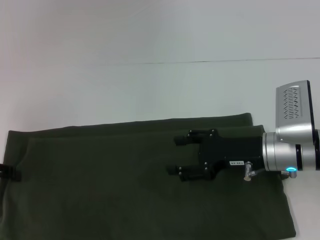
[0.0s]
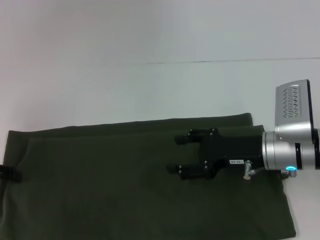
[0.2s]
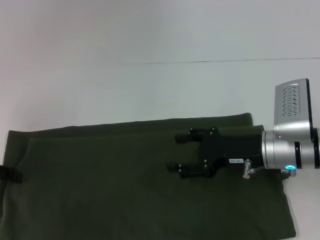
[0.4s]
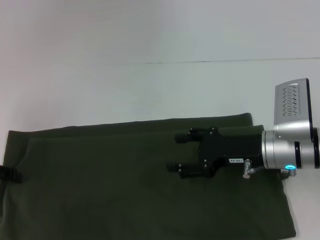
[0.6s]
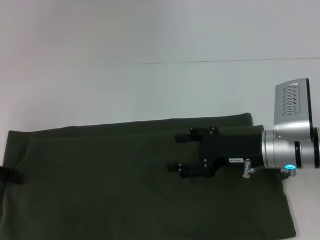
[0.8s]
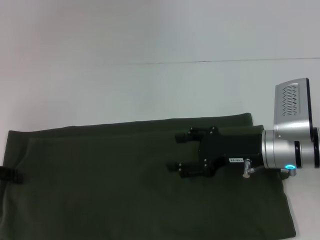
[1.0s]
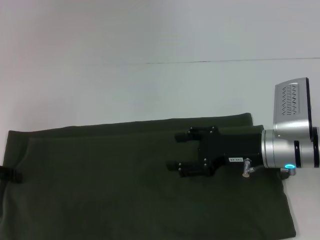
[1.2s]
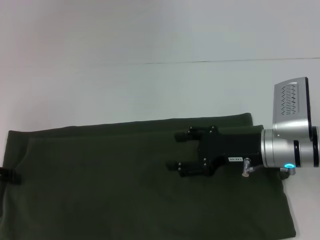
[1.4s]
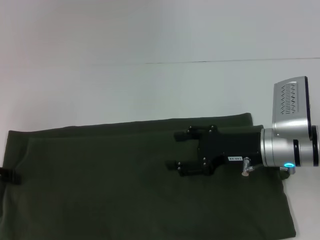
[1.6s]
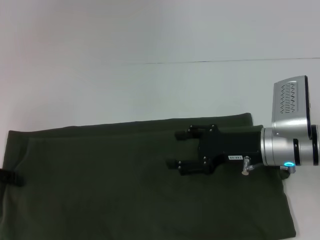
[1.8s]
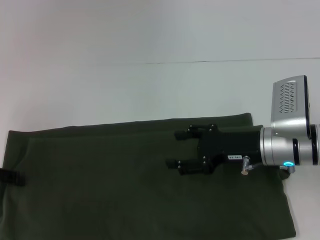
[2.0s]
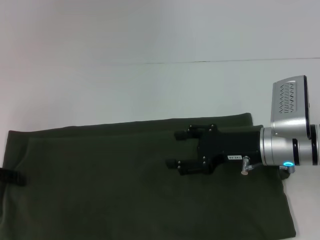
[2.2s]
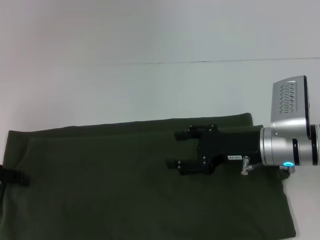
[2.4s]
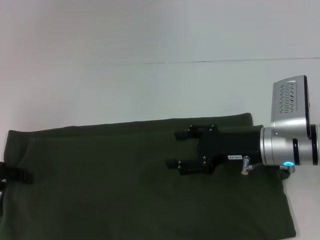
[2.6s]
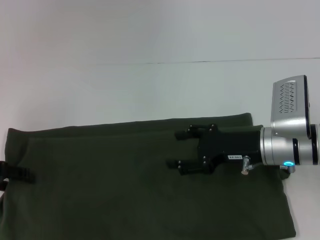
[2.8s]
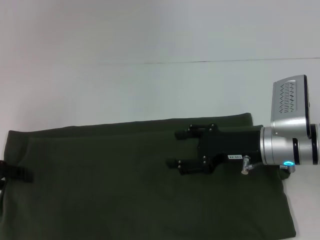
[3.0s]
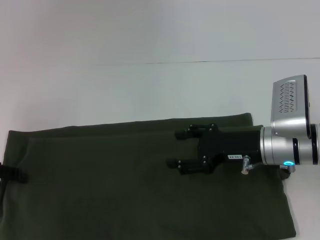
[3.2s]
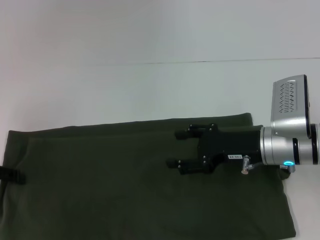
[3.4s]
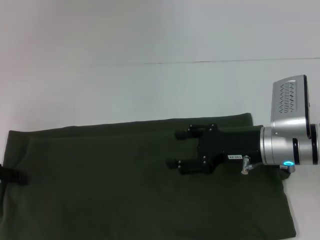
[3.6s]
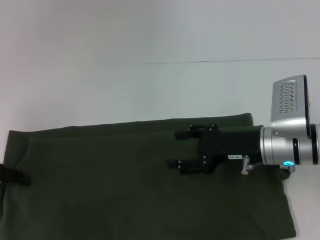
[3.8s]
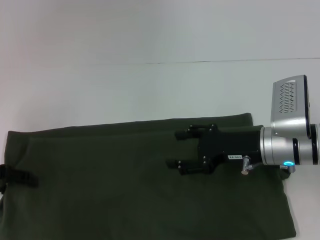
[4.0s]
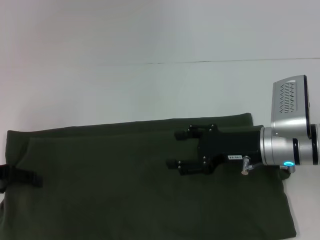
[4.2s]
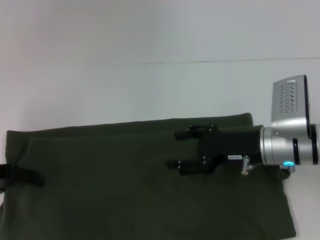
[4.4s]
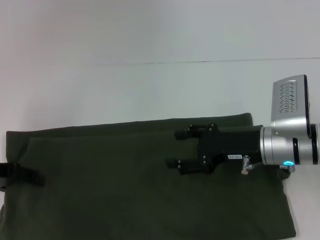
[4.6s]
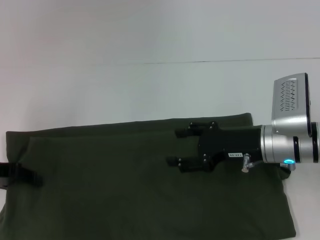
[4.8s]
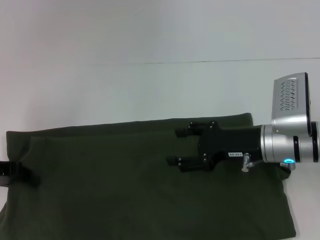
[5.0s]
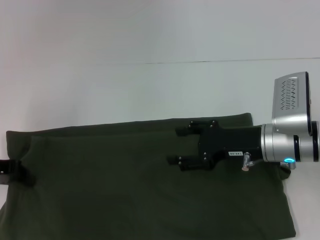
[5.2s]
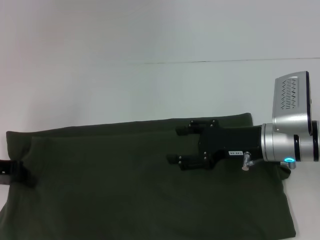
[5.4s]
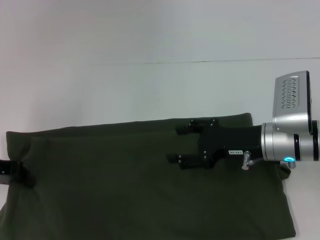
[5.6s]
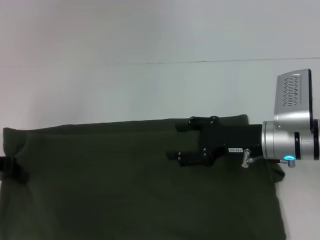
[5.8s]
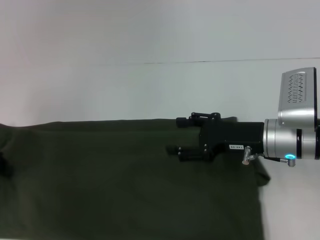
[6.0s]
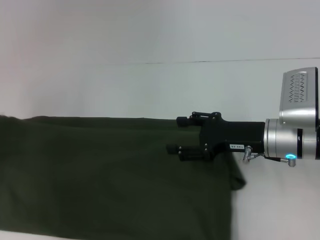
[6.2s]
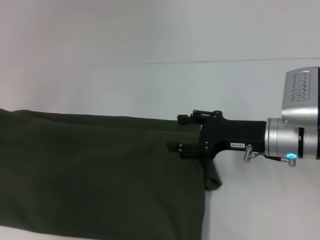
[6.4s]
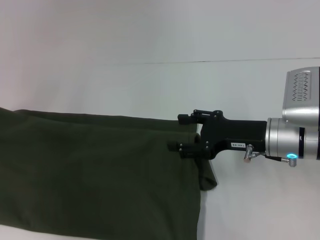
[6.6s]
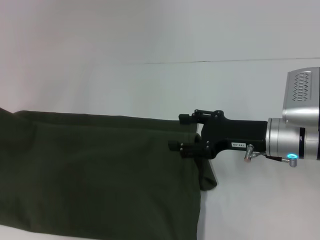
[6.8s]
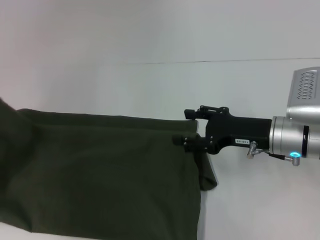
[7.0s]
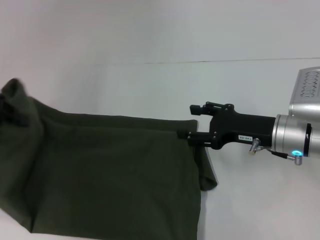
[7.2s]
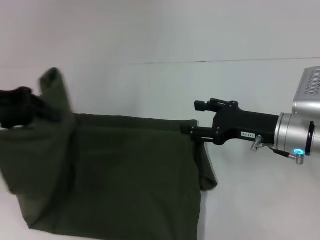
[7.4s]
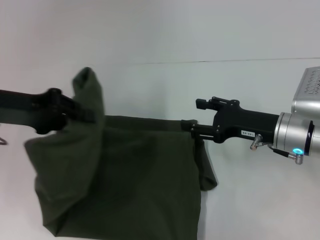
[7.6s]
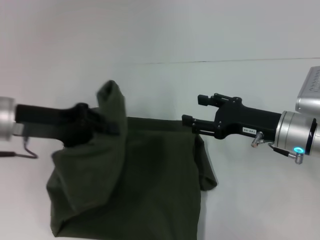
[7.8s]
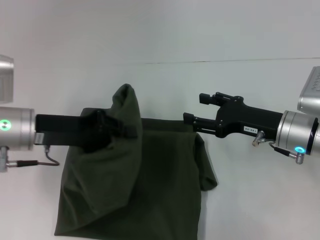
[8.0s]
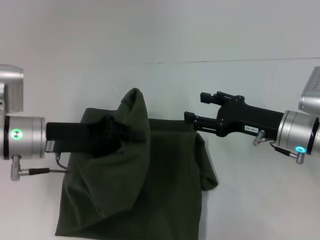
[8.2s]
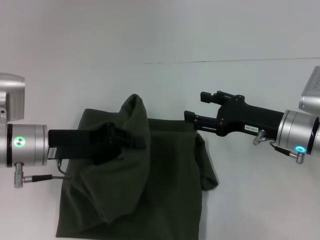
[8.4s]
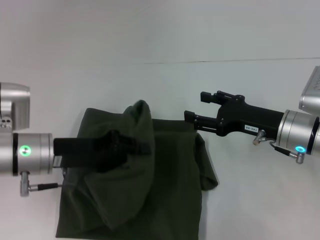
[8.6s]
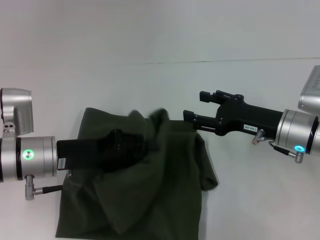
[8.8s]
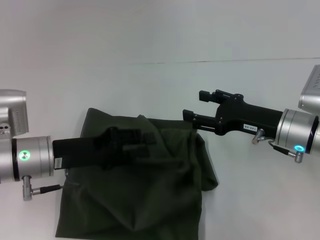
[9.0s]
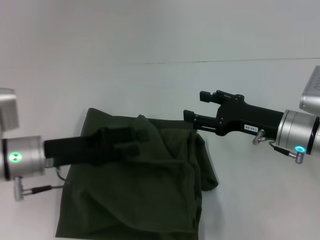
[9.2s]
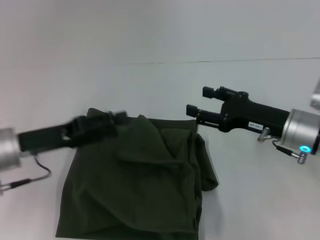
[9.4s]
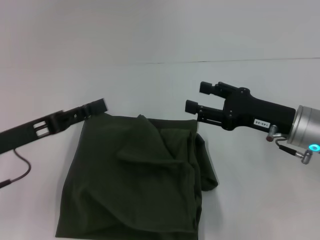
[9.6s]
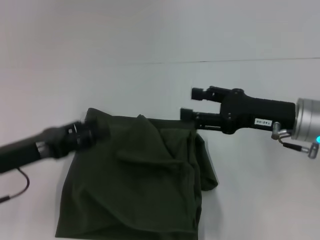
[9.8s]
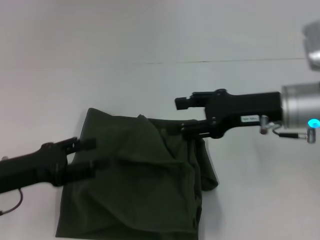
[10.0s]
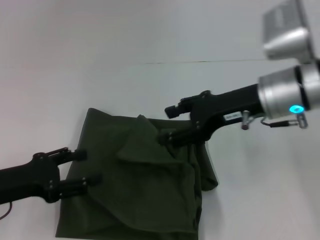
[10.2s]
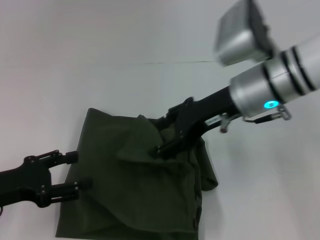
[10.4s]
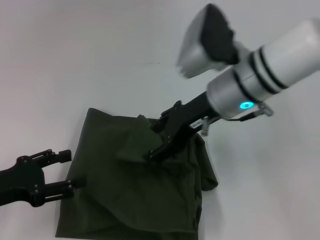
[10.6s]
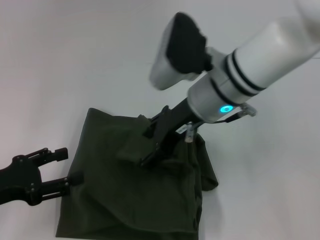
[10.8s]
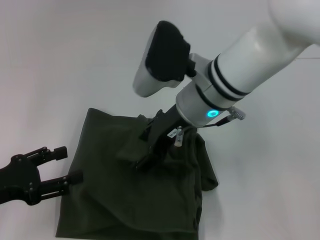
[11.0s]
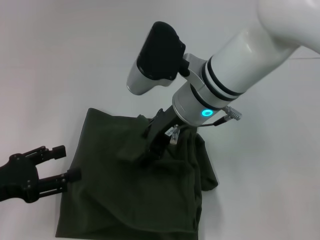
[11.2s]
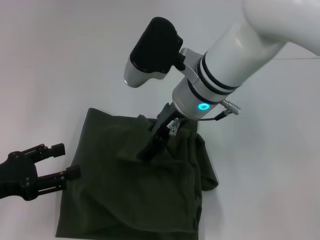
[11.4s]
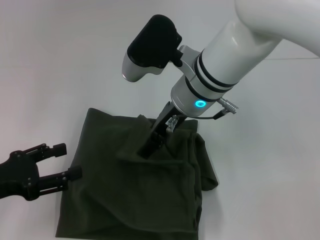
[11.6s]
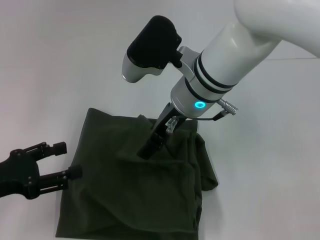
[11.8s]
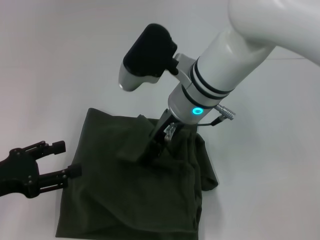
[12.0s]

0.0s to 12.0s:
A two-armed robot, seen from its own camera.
Step, 0.0s to 9.0s: Fold the clothes with your left hand.
0.0s to 1.6s: Neither gripper changes place.
1.6s to 3.0s: There are only small adjustments of the grippers.
4.4s to 6.0s: The left gripper closes its fingers.
6.0s to 7.6s: The left gripper goes about 10 cm to the right and upward.
7.6s to 9.0s: The left gripper travels downward and to the right by approximately 10 cm.
9.0s to 10.4s: The left gripper travels to the left and backward by about 10 cm, and opens; the right gripper is displaced upward and to the left by roughly 15 cm.
10.4s to 12.0s: The right gripper heads to the left, covering roughly 10 cm.

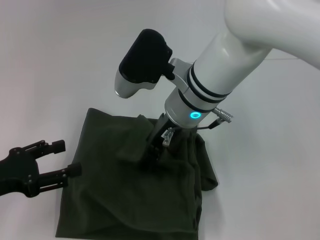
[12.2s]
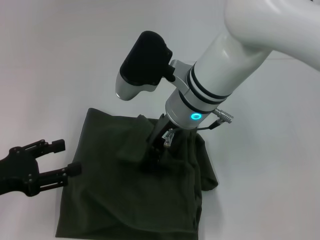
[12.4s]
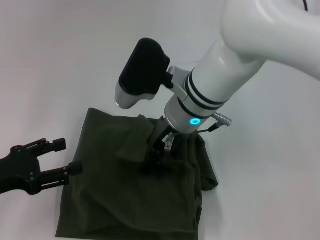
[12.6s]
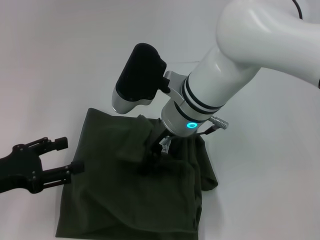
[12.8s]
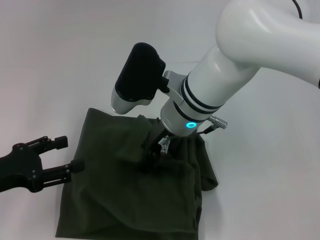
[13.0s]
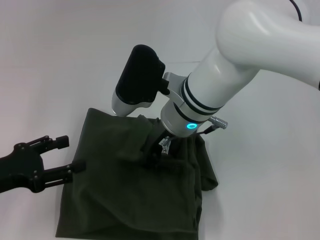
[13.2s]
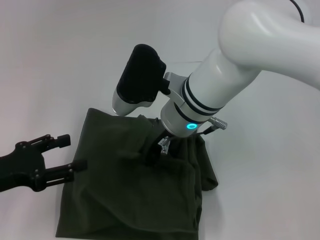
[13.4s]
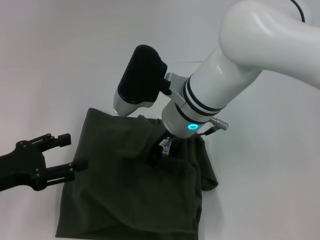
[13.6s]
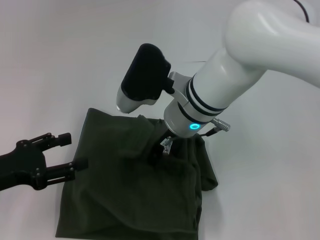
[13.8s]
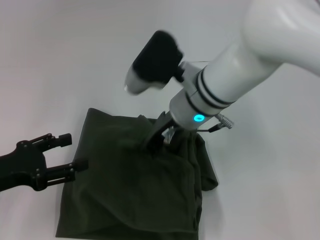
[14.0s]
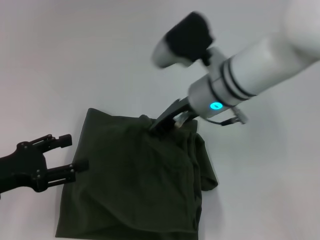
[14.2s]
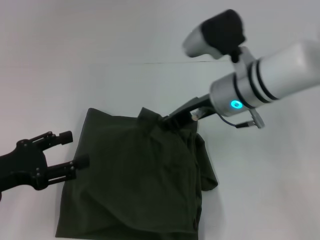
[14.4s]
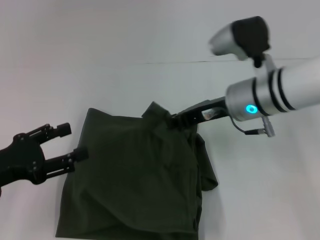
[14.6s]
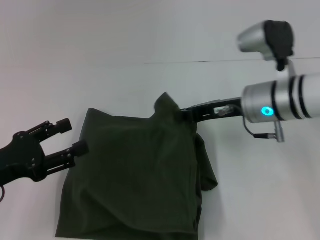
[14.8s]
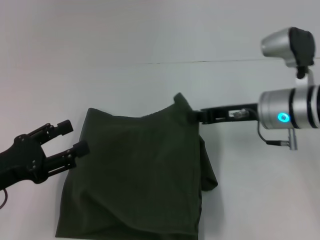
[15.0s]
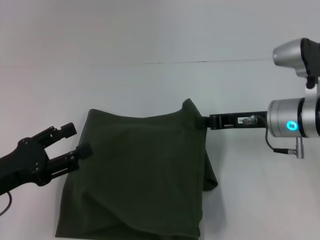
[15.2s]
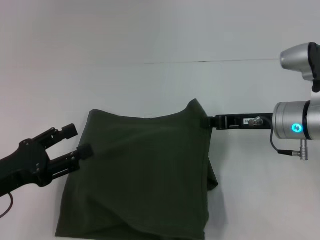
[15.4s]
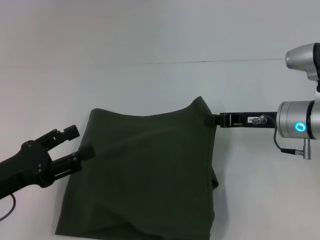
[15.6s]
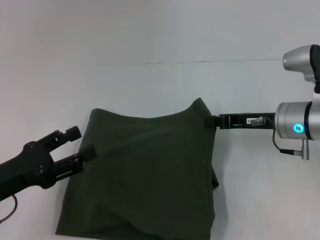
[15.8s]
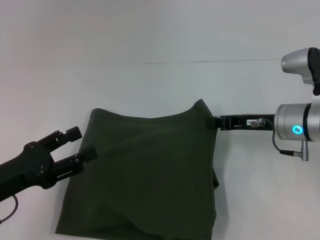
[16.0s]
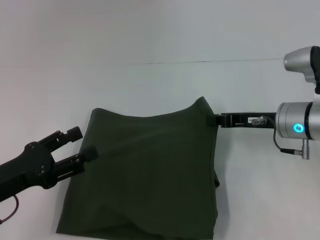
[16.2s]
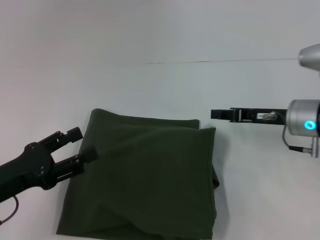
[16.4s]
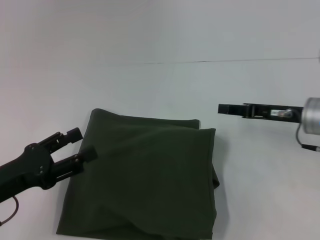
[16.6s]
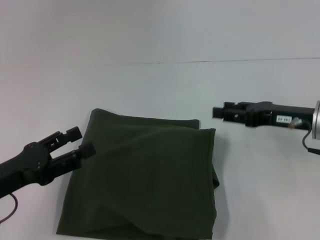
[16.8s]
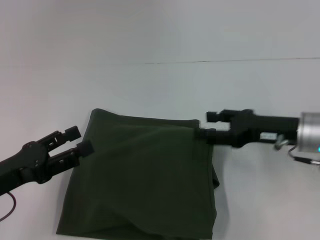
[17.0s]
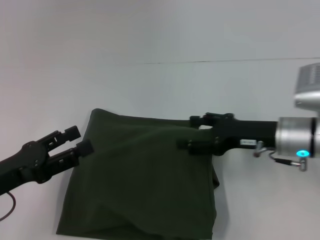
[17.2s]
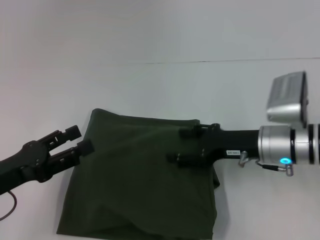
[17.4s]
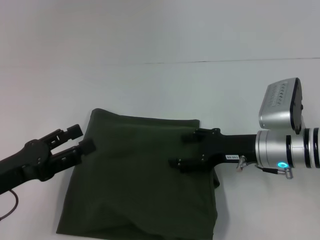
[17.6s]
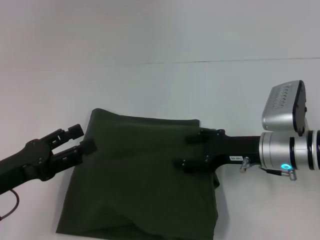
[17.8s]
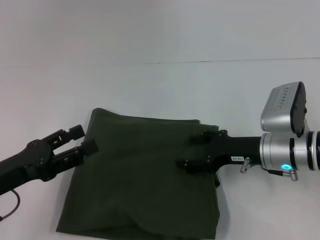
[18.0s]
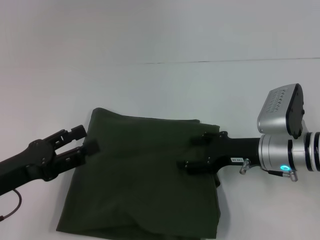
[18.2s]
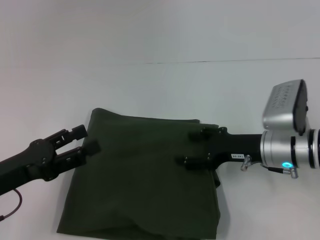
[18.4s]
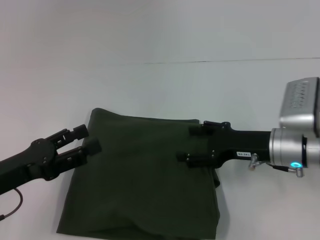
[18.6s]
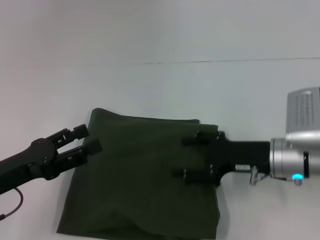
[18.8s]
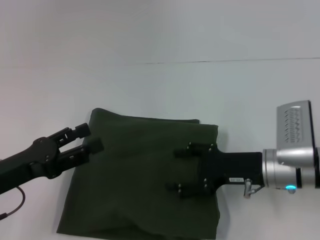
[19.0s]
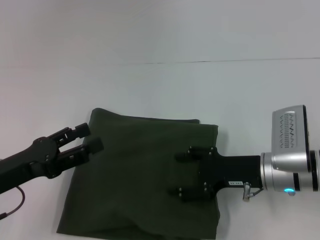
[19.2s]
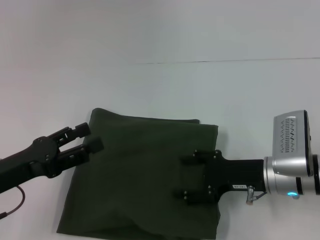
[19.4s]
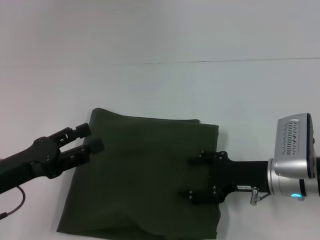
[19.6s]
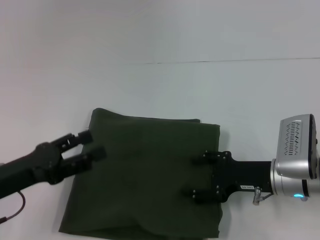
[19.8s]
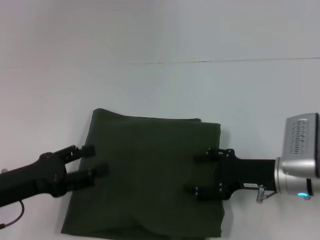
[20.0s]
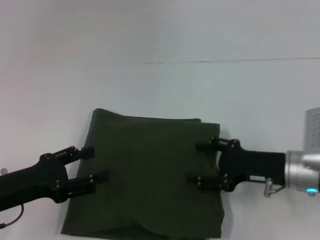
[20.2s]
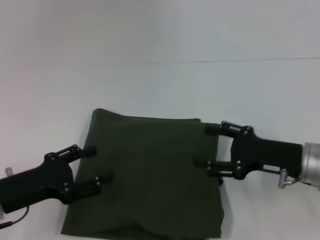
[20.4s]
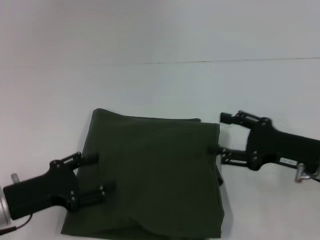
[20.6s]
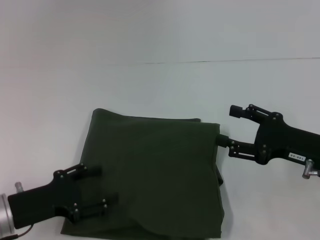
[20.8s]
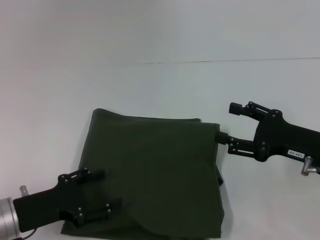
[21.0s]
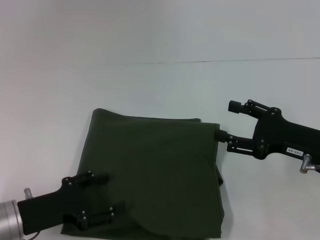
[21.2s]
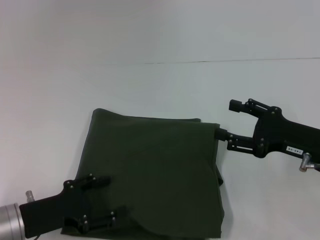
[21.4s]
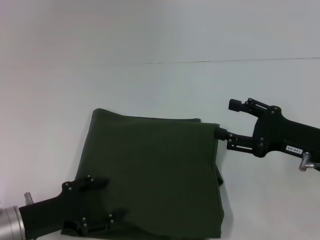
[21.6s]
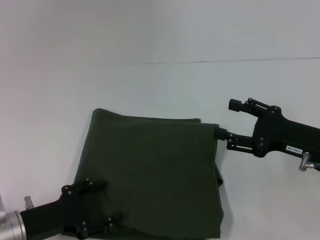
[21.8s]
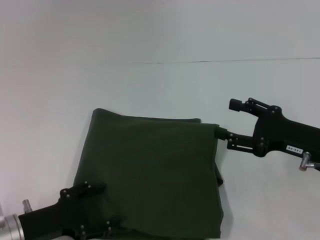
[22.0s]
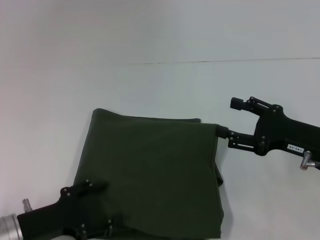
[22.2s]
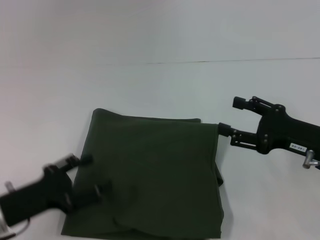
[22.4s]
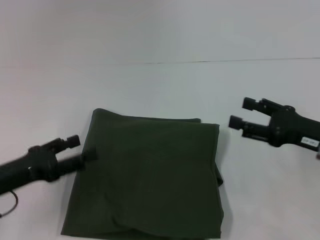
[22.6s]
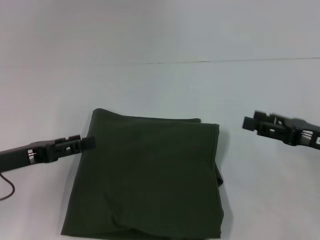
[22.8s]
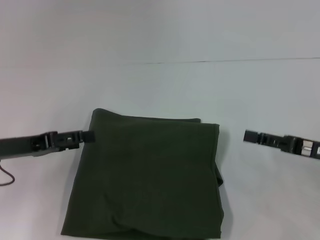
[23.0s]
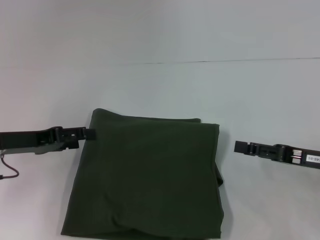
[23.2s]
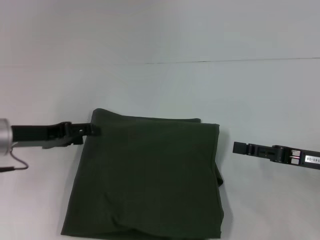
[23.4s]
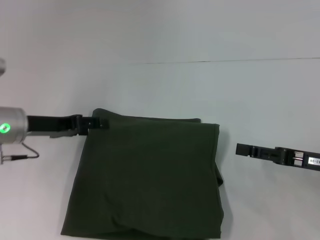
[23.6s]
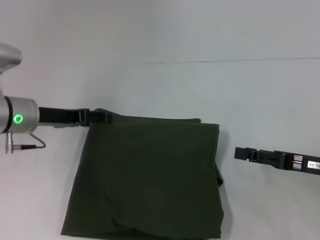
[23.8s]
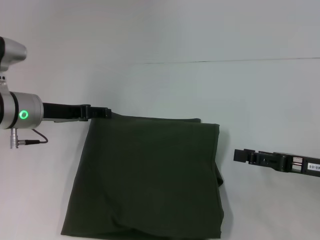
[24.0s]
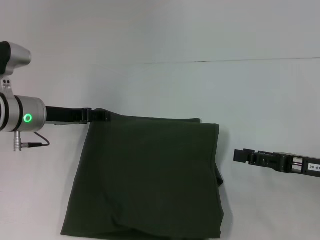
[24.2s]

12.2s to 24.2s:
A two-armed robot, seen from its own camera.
12.2s to 13.8s: The right gripper closes its fingers.
13.8s to 15.2s: The right gripper is displaced to the right by approximately 15 cm.
15.2s to 16.6s: The right gripper is displaced to the right by approximately 5 cm.
16.6s to 18.2s: The right gripper shifts some 5 cm to the left, and opens.
18.2s to 19.8s: There are only small adjustments of the grippers.
19.8s to 21.2s: The left gripper heads downward, covering roughly 5 cm; the right gripper goes approximately 5 cm to the right.
21.2s to 22.6s: The left gripper changes place by some 5 cm.
22.6s to 24.2s: The left gripper goes about 15 cm forward.
